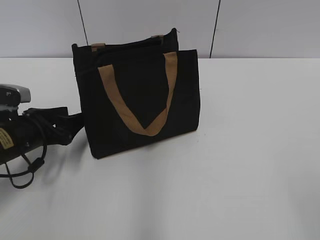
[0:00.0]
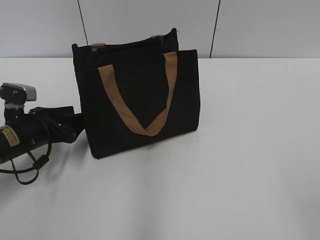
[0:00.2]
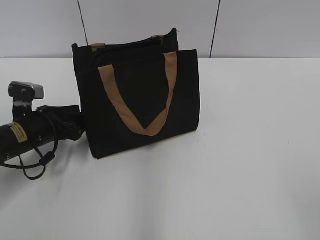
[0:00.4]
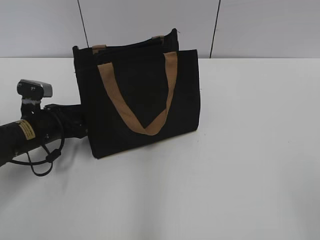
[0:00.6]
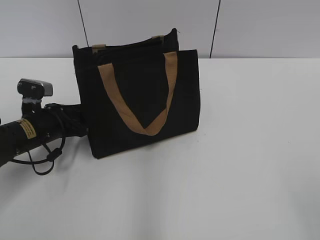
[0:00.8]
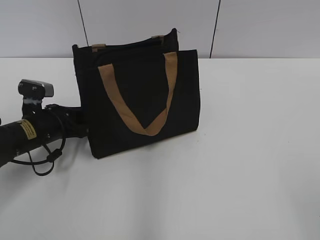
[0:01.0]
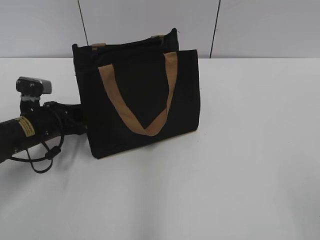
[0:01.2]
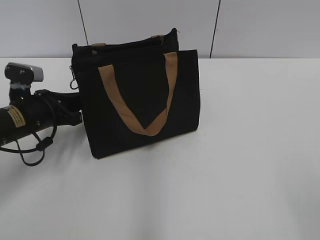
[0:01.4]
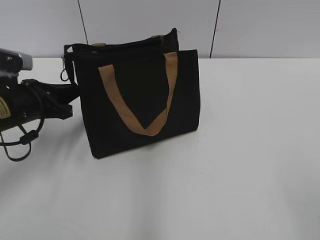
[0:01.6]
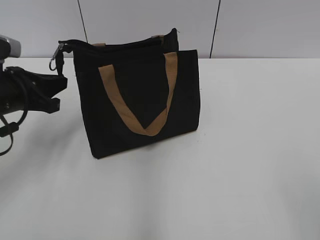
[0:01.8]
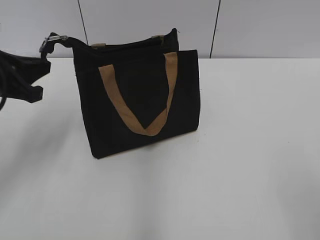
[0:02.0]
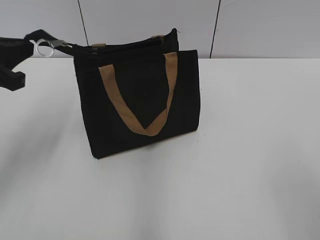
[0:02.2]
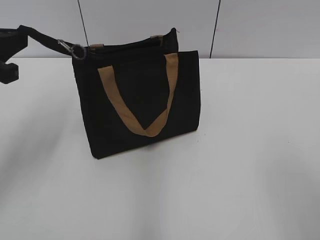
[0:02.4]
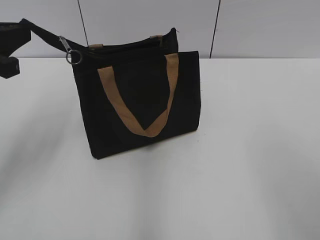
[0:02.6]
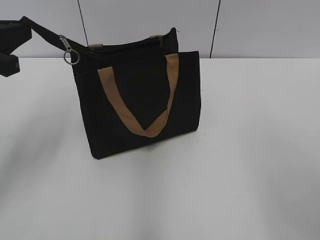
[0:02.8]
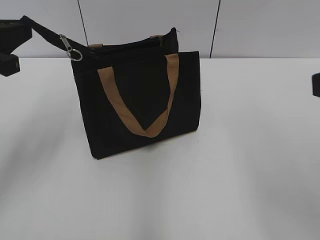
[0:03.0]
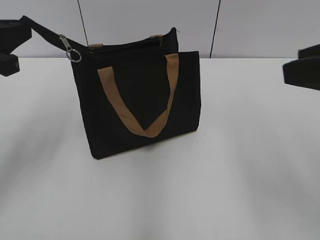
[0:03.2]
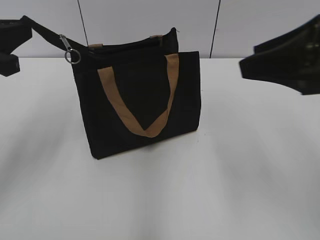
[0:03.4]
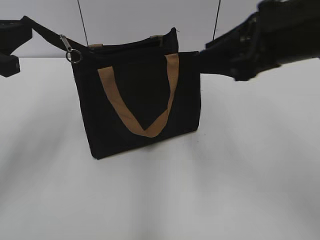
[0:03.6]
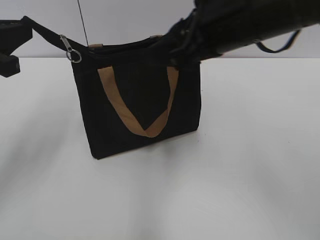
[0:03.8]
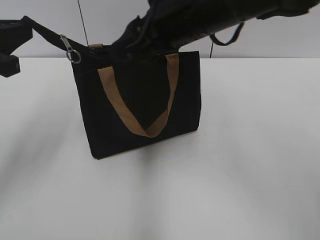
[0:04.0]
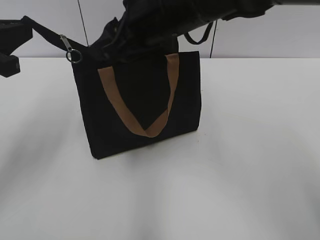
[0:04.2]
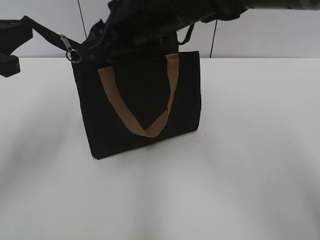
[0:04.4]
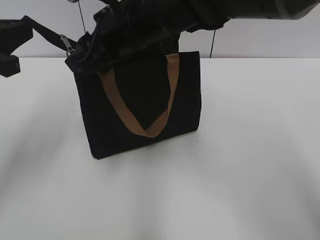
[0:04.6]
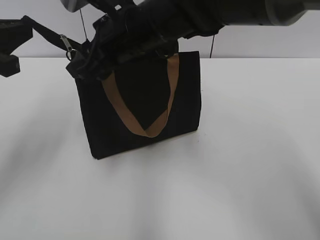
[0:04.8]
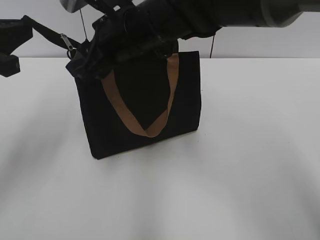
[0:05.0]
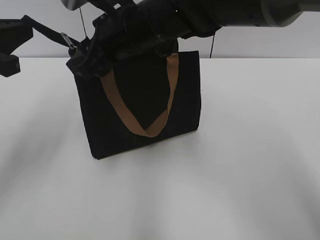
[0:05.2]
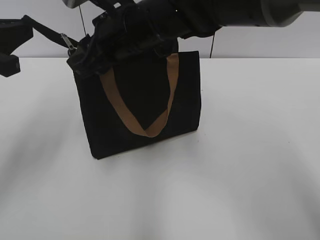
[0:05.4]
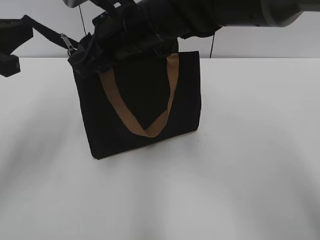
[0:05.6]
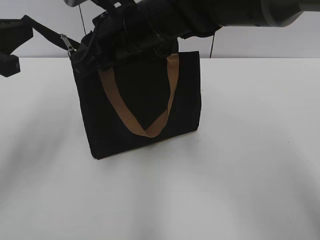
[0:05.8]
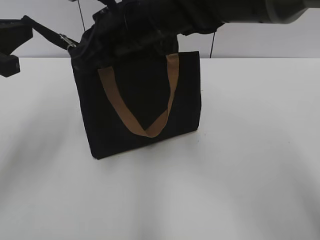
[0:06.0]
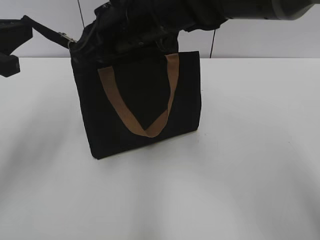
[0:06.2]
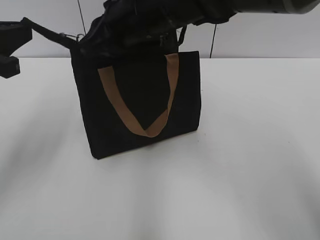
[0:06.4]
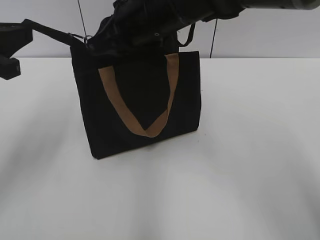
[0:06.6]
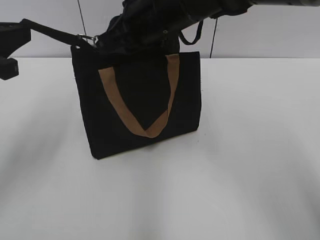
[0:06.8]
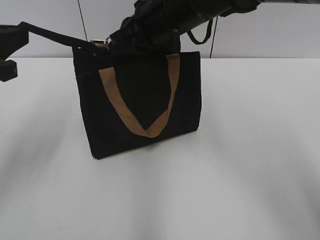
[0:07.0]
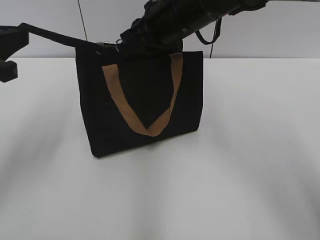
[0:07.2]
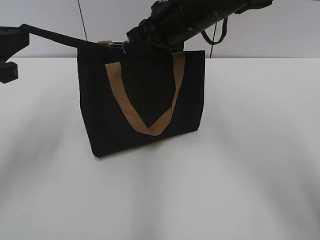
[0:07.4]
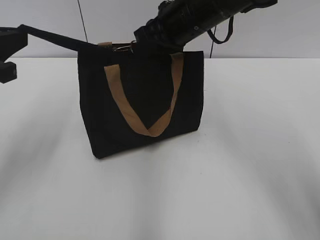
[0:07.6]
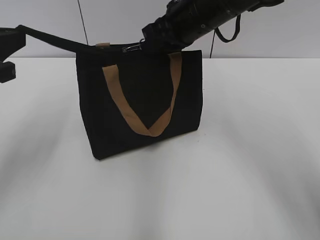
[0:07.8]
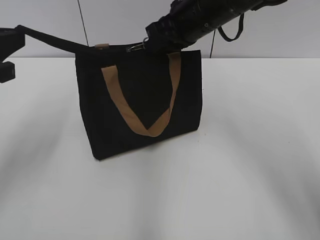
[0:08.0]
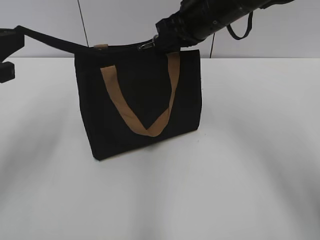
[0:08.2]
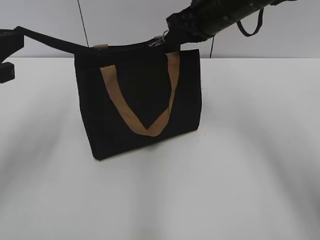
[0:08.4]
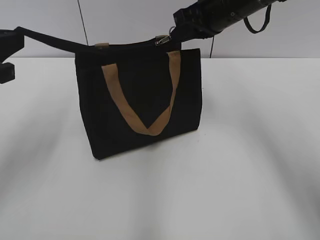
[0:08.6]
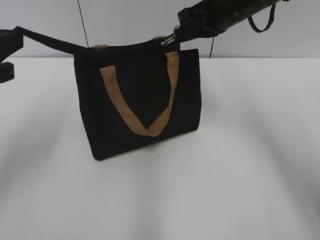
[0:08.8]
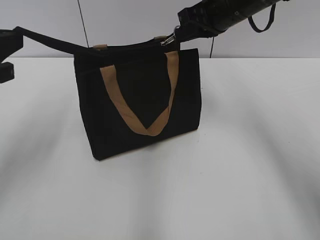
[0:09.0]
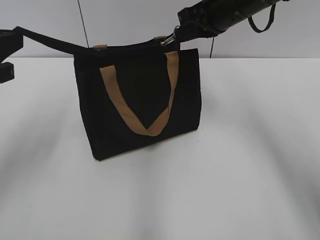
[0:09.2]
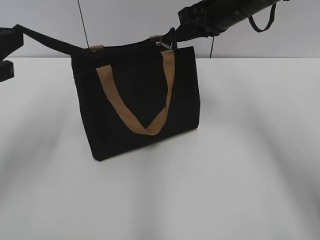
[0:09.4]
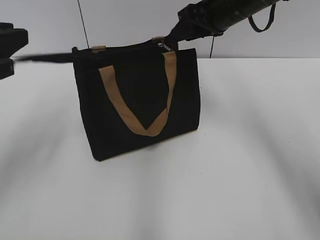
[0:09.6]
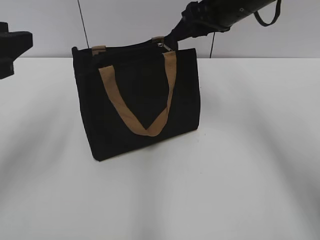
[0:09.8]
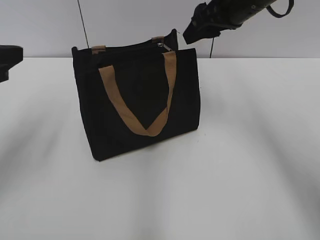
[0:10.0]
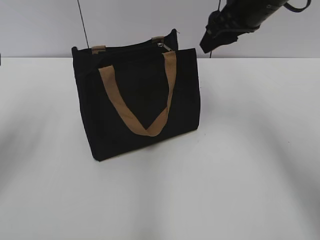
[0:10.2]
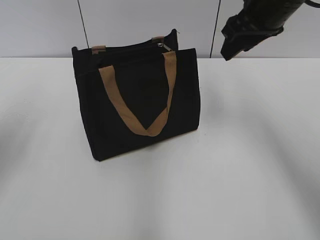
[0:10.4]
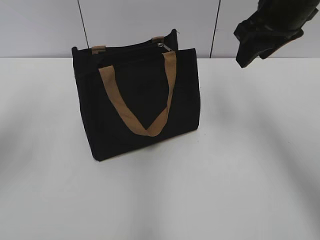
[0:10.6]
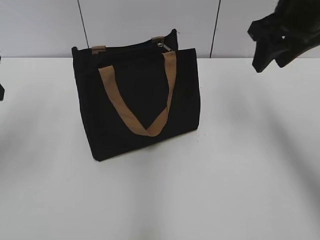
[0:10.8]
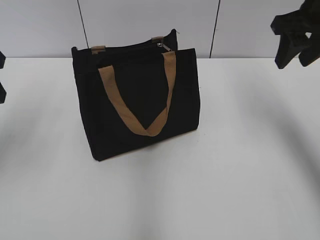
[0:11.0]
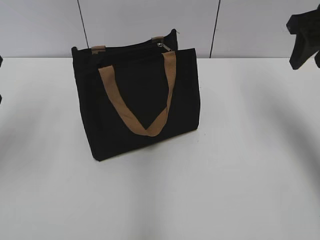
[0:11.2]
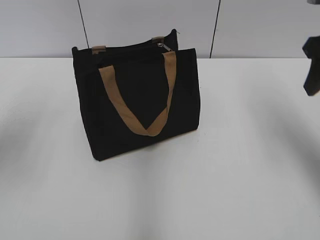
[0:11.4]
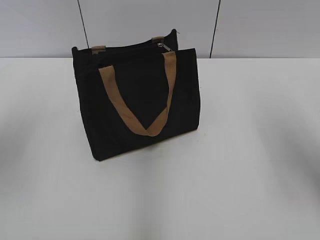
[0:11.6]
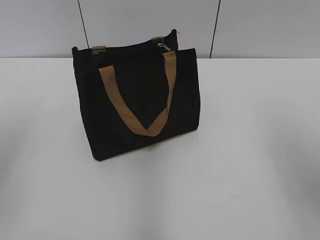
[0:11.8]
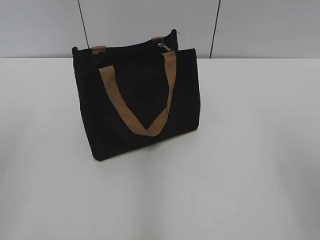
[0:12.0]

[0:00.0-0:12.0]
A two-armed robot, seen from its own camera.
Step, 0:00.0 to 0:09.4: Zip up the bag with your right hand.
0:00.0 to 0:01.6: The left gripper heads upward, covering some 5 cm, and closes up.
0:01.6 to 0:03.0: The right gripper goes roughly 15 cm forward and upward. The left gripper travels upward and backward by about 15 cm.
0:03.0 to 0:04.4: The right gripper shifts approximately 30 cm to the left and forward.
0:04.4 to 0:06.0: The right gripper closes up.
0:06.0 to 0:07.6: The right gripper shifts some 10 cm to the right.
0:07.6 to 0:09.0: The right gripper moves to the right, some 5 cm.
0:09.0 to 0:10.4: The left gripper opens. Meanwhile the right gripper ends up approximately 5 cm from where it was, and opens.
0:10.4 to 0:12.0: The right gripper moves backward, some 25 cm.

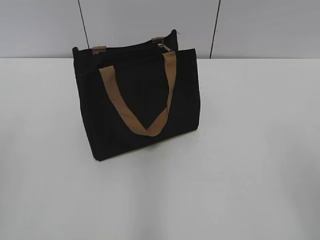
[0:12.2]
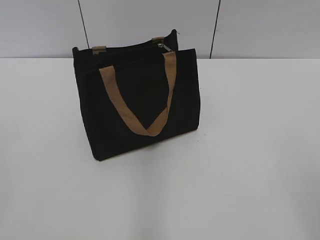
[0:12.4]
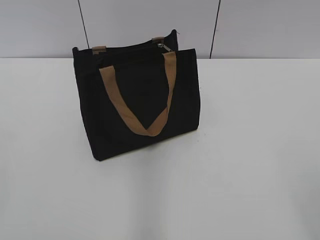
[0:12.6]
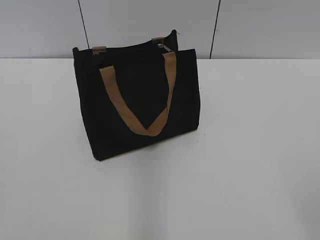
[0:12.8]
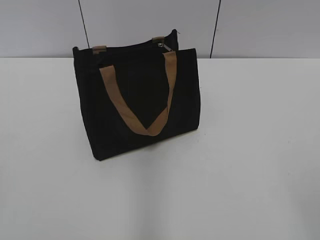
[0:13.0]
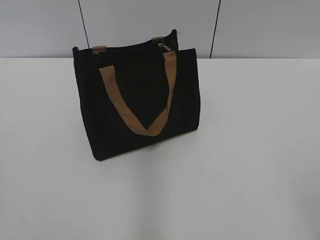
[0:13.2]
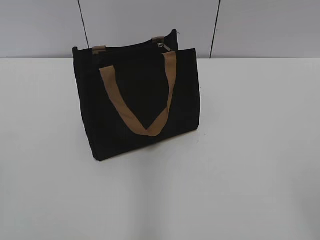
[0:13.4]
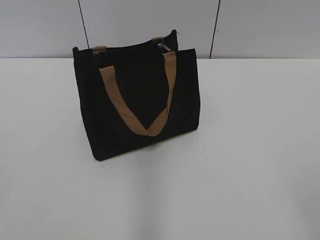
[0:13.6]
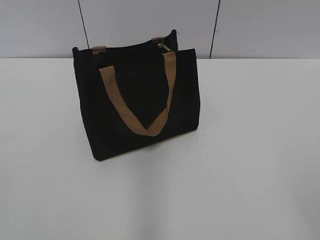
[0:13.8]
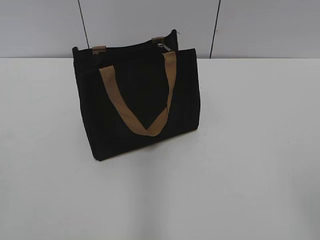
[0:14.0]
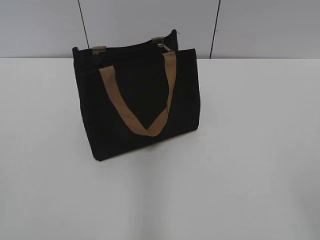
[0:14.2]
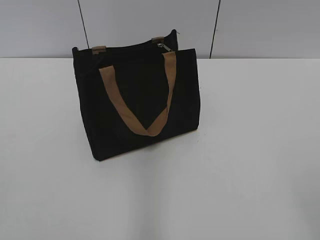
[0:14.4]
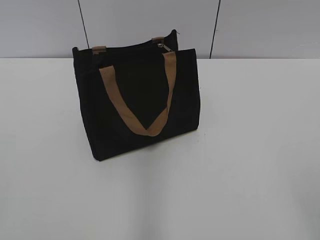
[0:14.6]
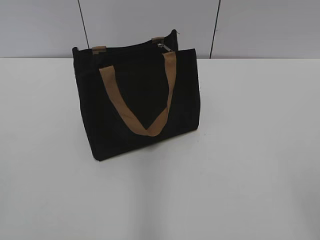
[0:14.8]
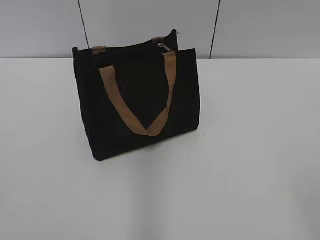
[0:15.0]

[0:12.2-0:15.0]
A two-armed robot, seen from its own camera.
0:13.6 to 0:15.0: Both grippers stay about where they are.
